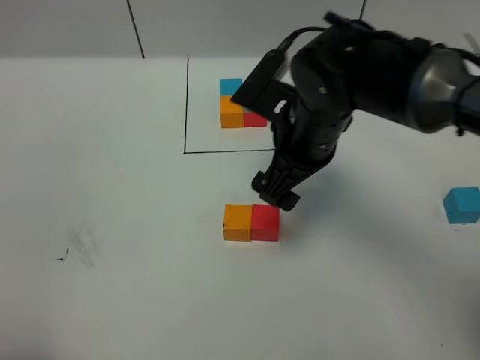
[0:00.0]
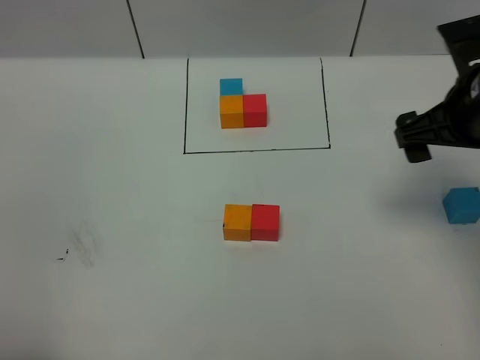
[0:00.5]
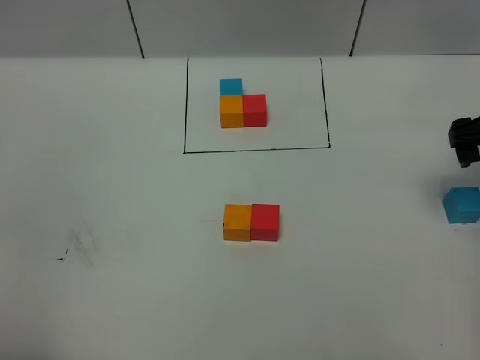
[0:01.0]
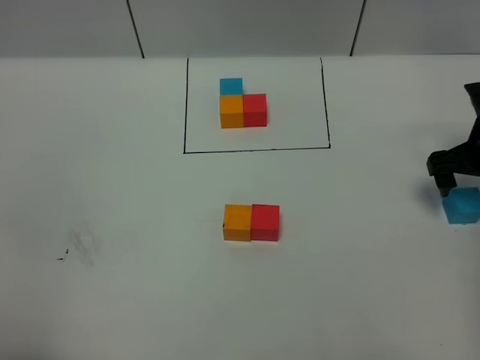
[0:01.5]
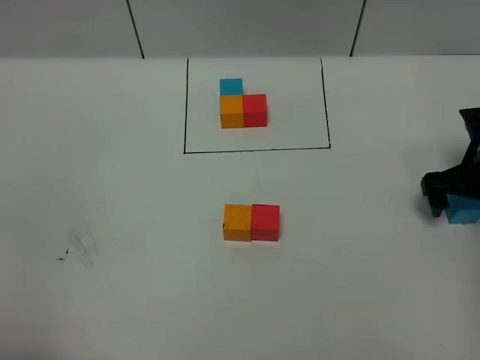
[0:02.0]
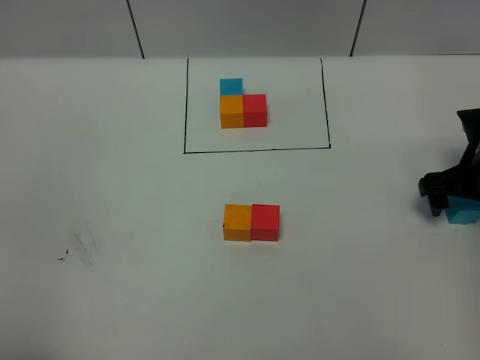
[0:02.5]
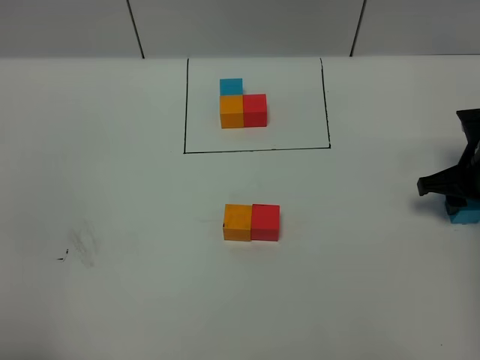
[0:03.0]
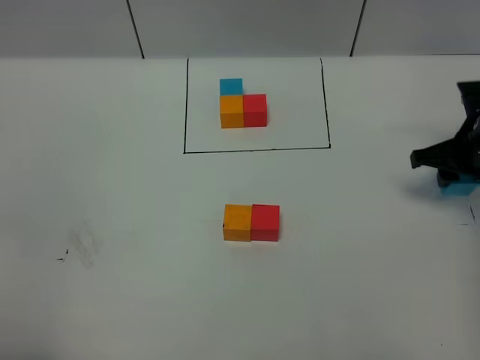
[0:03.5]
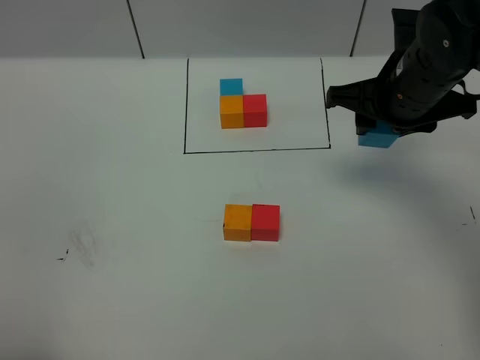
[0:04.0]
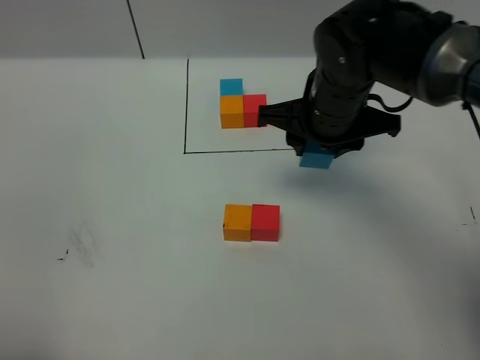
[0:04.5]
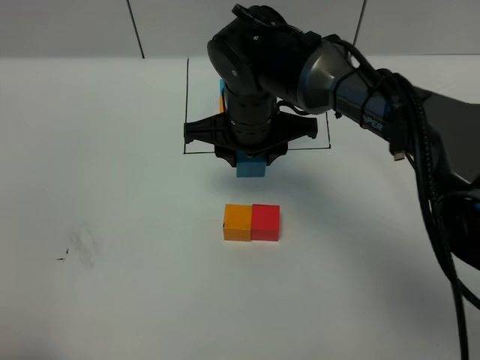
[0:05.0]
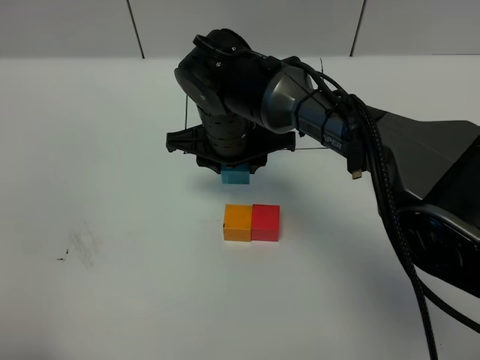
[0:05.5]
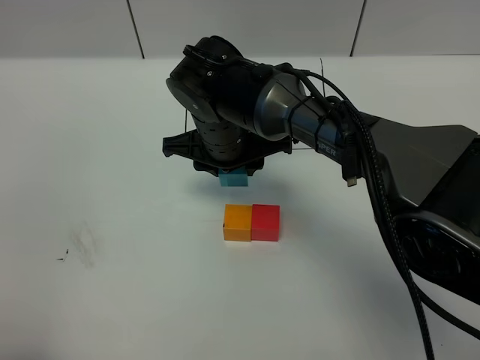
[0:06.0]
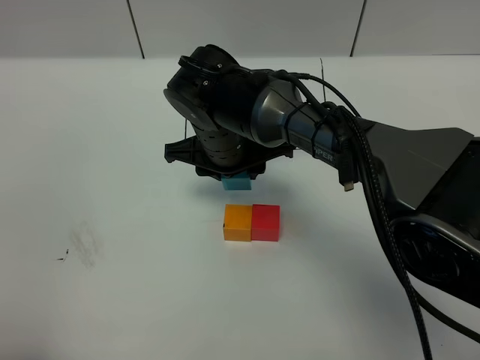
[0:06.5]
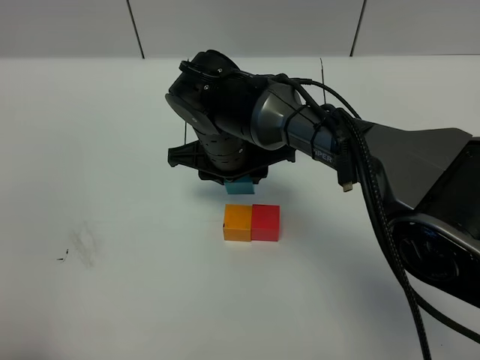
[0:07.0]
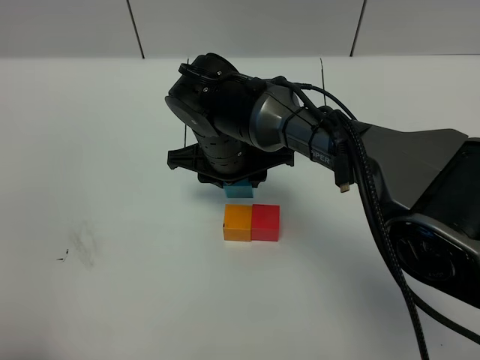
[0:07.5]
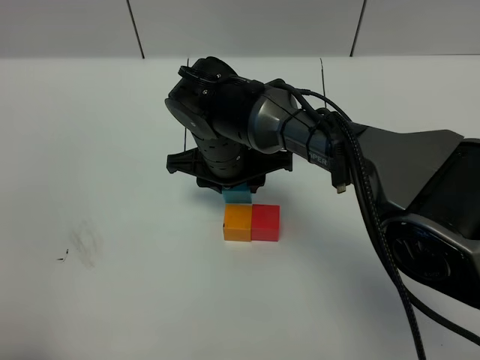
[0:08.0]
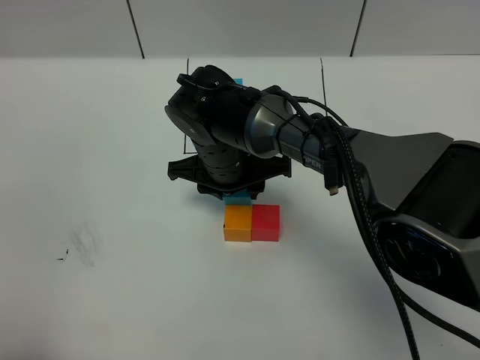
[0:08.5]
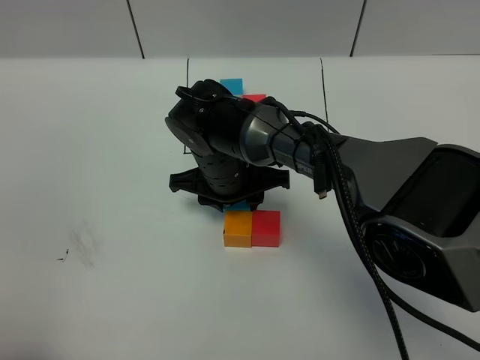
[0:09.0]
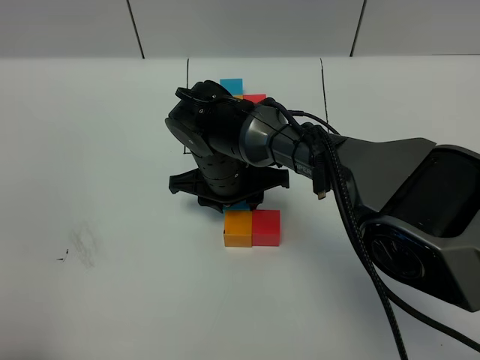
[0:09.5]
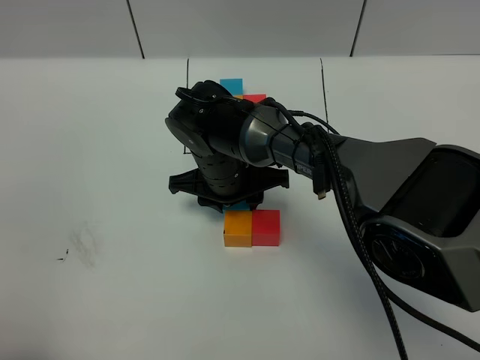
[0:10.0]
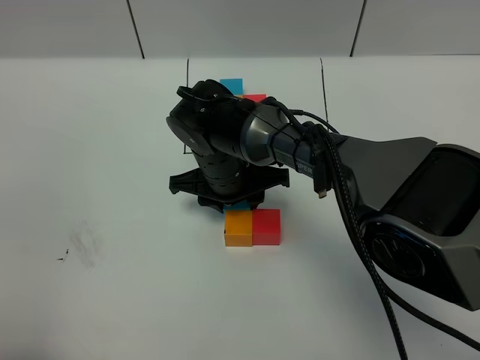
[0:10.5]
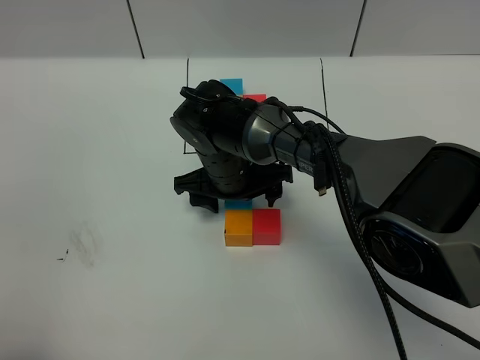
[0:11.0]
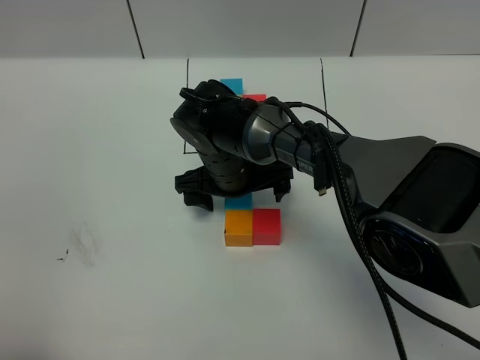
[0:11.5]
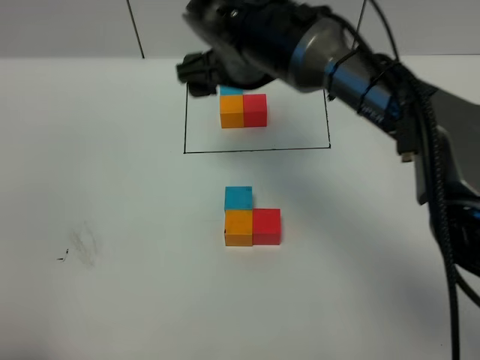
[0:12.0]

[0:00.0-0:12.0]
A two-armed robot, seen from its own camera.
Task of the whole recording: According to the building block template in front, assemble the scattered blocks together.
Step, 0:00.0 to 0:10.5: Put the blue cube on the behind of the orange cube.
0:00.0 to 0:02.0: The right gripper moves to the right and downward, some 25 cm.
0:02.0 to 0:04.0: The right gripper is displaced to the left and upward by some 20 cm, and closes.
0:04.0 to 0:06.0: The right gripper heads to the left, covering some 20 cm.
0:06.0 to 0:10.0: There are only small adjustments of the grippers.
0:10.0 to 0:12.0: The right gripper is displaced upward by about 15 cm, and opens.

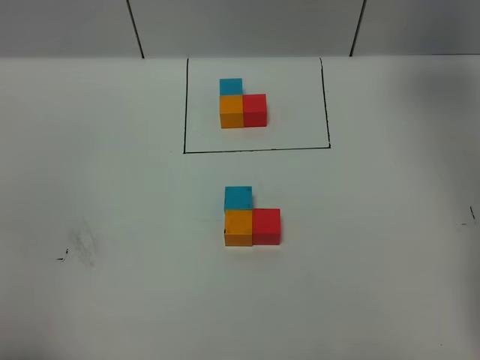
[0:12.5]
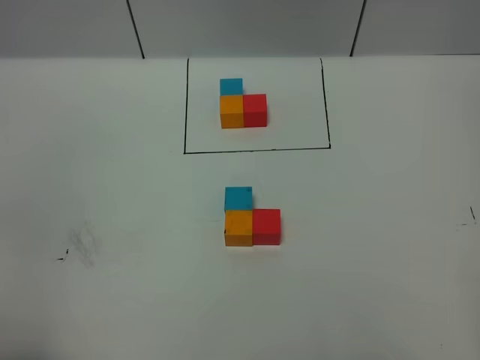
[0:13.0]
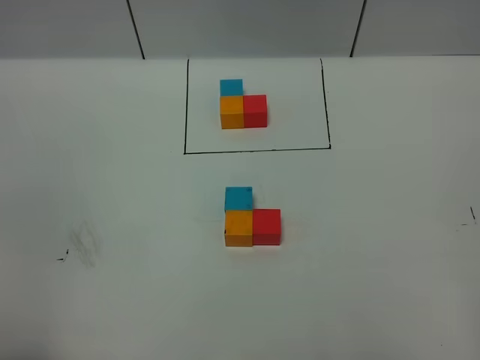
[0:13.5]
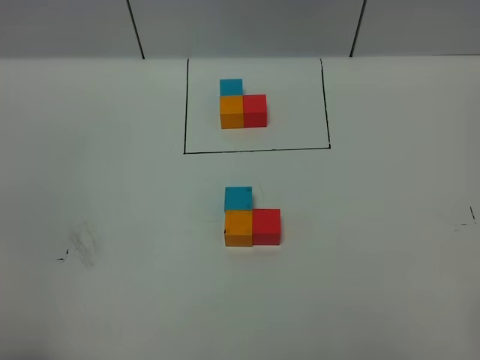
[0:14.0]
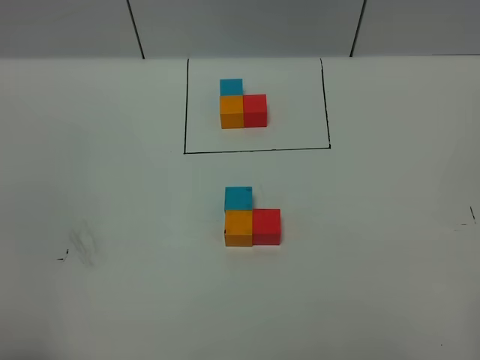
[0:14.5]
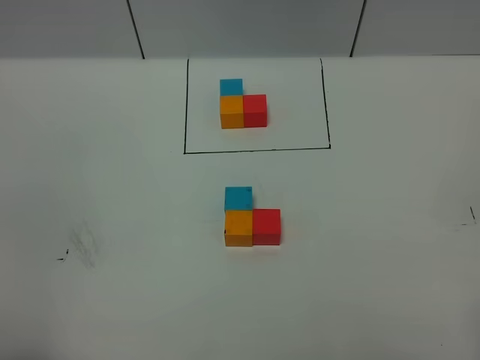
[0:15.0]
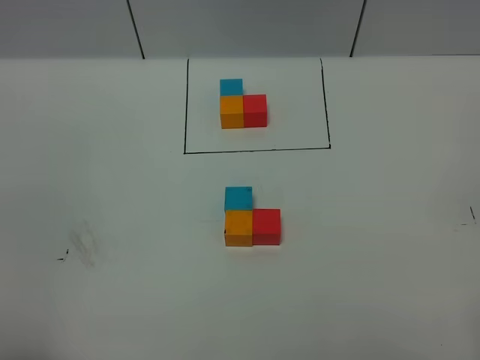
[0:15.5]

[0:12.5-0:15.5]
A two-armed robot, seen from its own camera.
Task of the whole recording: According to the building block template in front, assemble the scattered blocks together.
0:12.5 to 0:14.0: The right gripper heads backward, covering about 50 cm, and closes up.

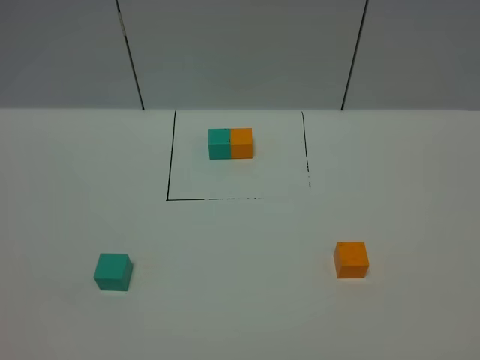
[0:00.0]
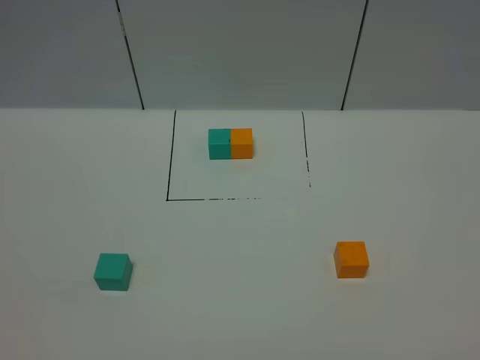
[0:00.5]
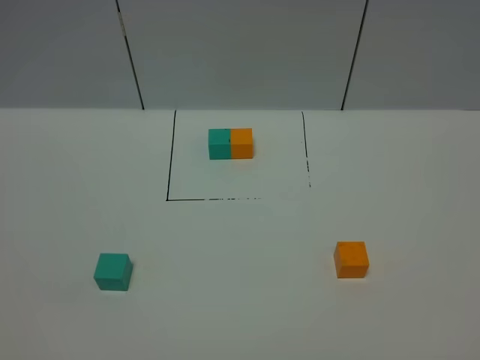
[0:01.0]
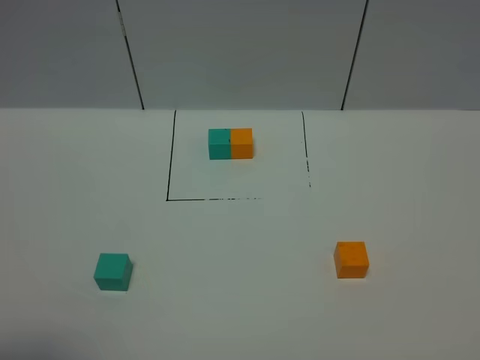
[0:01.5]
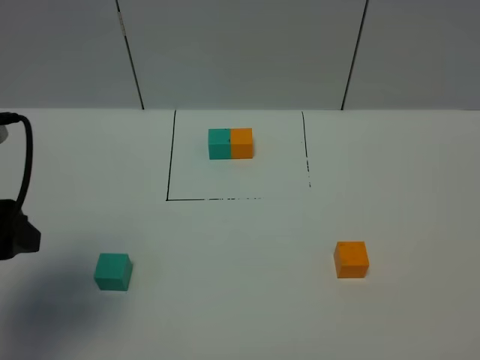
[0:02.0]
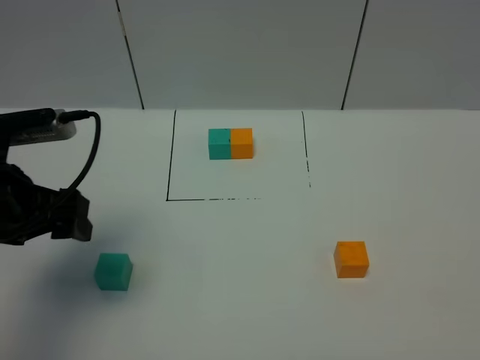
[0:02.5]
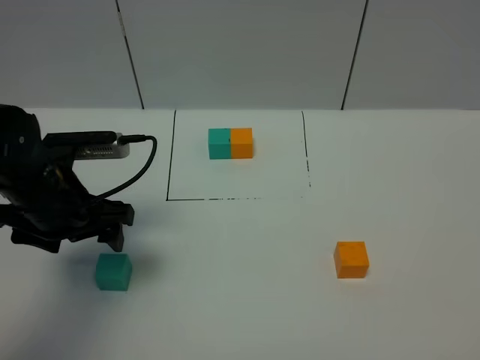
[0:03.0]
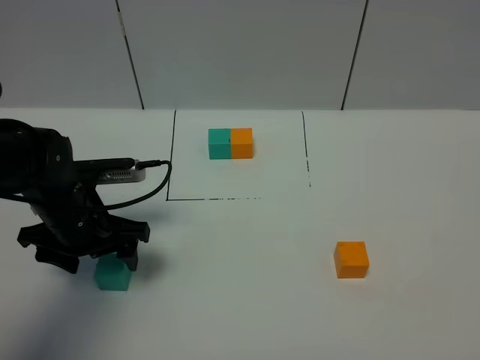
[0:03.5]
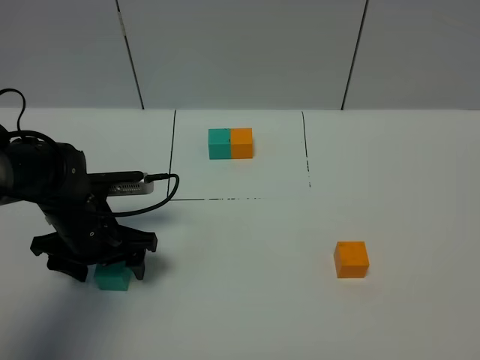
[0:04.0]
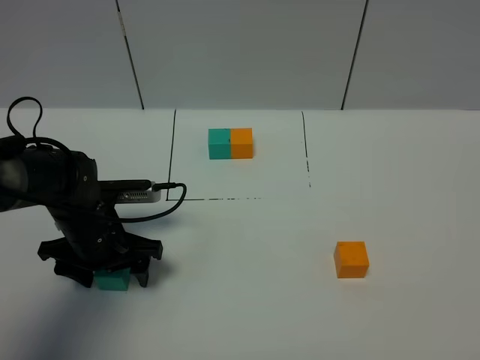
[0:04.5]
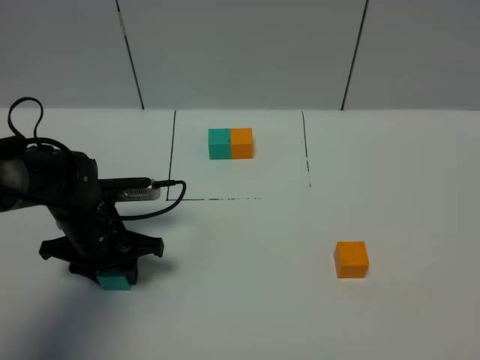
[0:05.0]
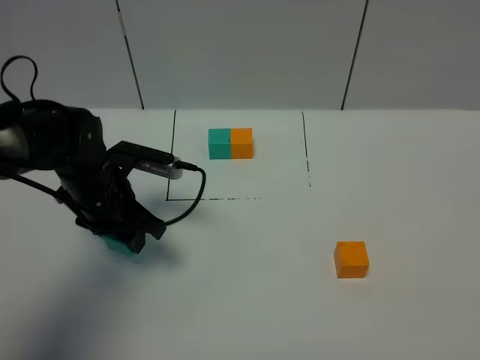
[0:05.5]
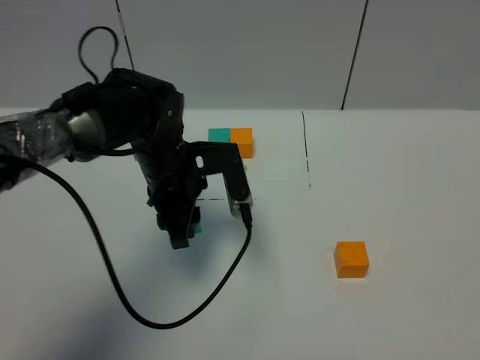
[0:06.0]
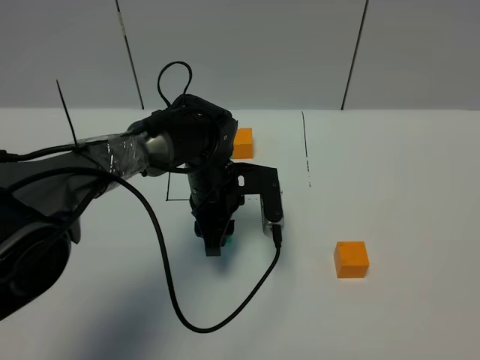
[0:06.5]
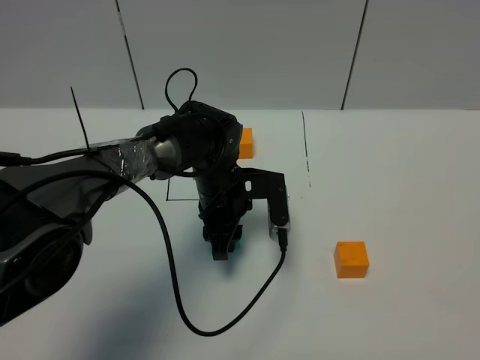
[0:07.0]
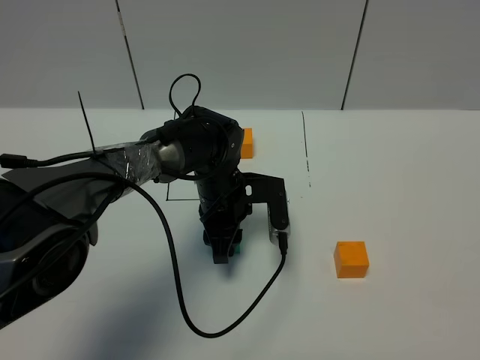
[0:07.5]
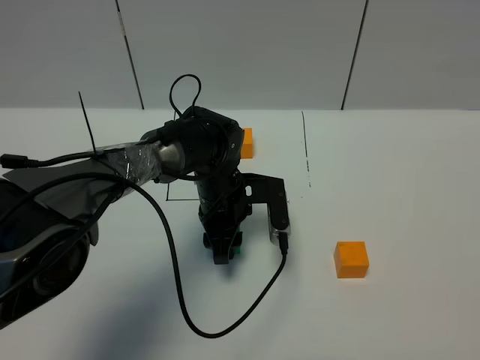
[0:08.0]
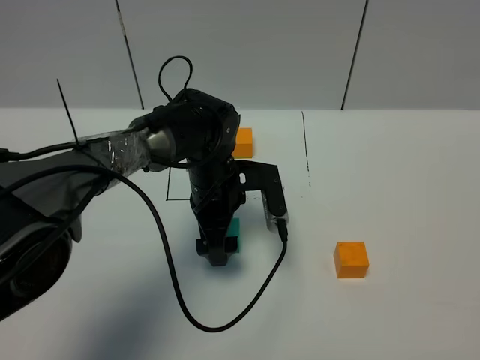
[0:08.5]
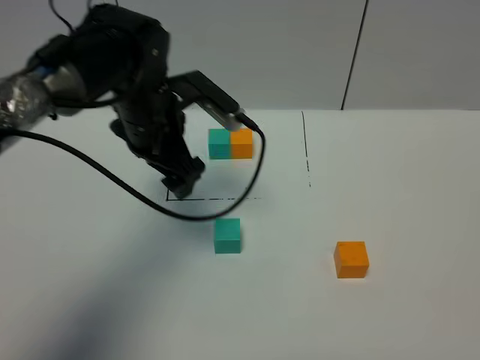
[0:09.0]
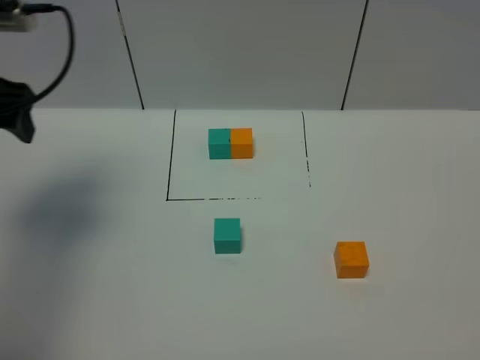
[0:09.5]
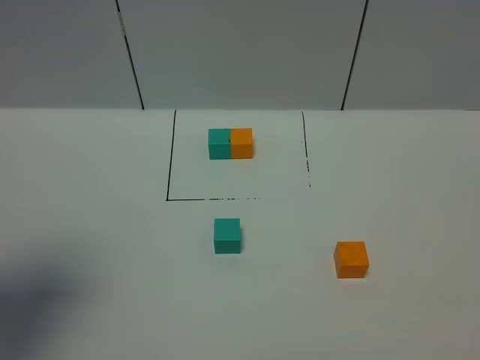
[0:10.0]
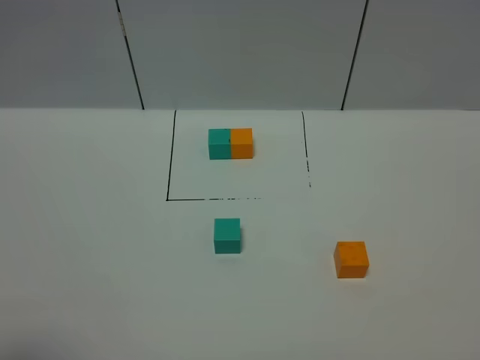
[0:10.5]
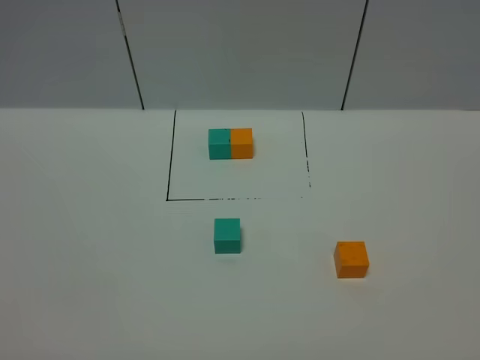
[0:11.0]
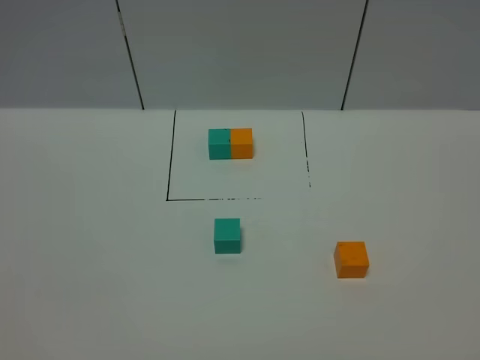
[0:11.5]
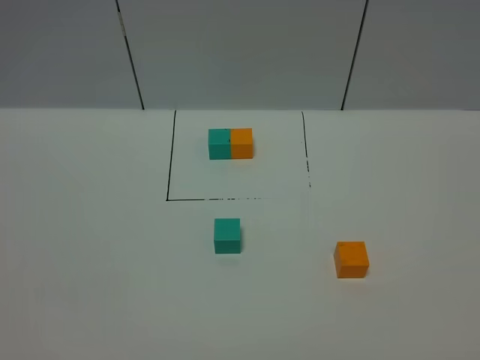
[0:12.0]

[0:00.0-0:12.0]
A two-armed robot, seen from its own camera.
Task of the whole recording: According to the building block template in front, assemble the scattered blocks together.
Step, 0:02.0 to 0:08.0: Put the green cube in the center of the table.
0:00.0 to 0:02.0: The left gripper goes roughly 20 cm forward.
0:02.0 to 0:04.0: The left gripper heads downward, forward and to the right, covering some 25 cm.
0:04.0 to 0:06.0: The left gripper heads to the right and upward, covering approximately 15 cm, and closes its fingers.
0:06.0 to 0:08.0: The left gripper goes about 10 cm downward and to the right.
0:08.0 to 0:10.0: The left gripper moves to the left, upward and backward, about 40 cm, and opens.
0:10.0 to 0:12.0: The left gripper travels backward and downward by about 20 cm.
